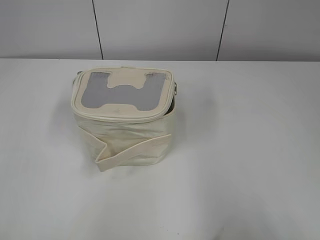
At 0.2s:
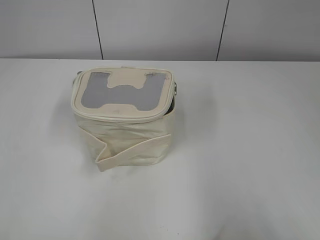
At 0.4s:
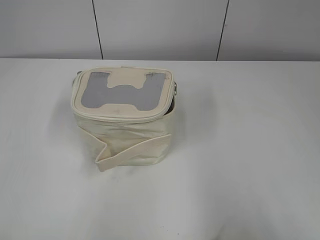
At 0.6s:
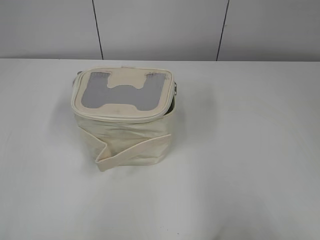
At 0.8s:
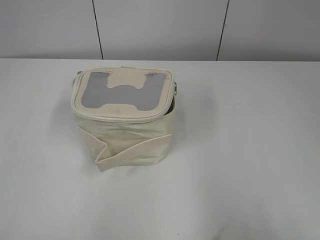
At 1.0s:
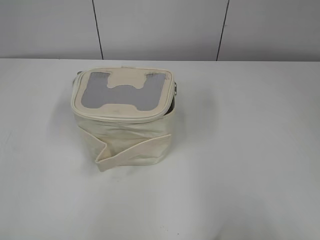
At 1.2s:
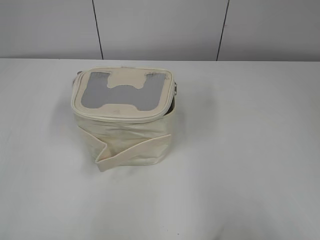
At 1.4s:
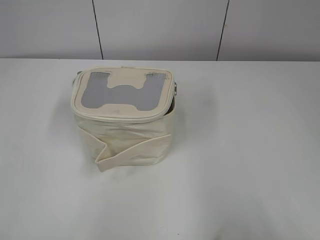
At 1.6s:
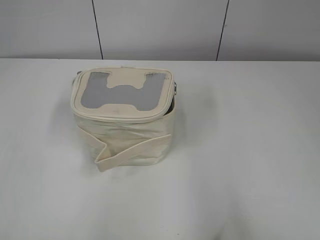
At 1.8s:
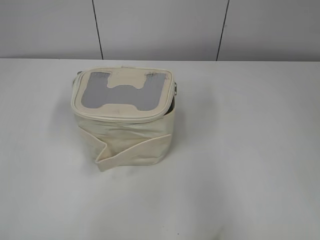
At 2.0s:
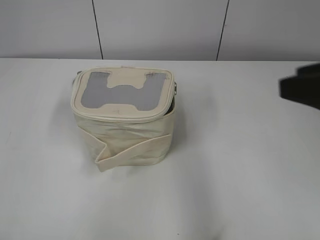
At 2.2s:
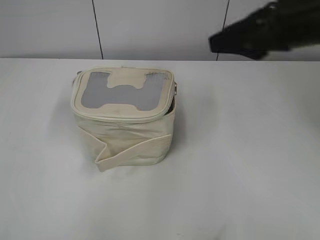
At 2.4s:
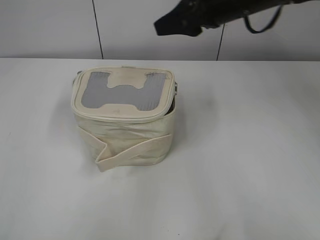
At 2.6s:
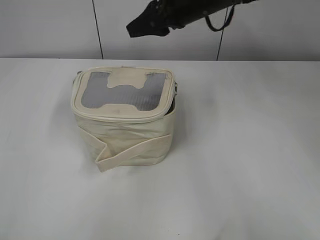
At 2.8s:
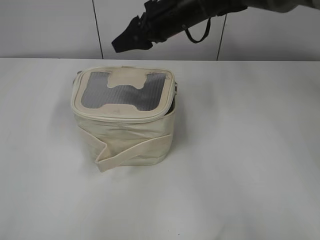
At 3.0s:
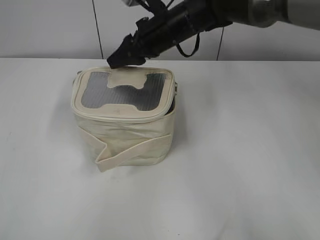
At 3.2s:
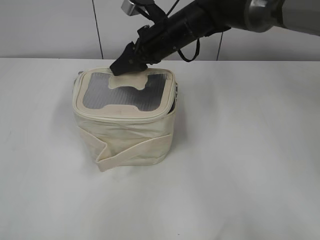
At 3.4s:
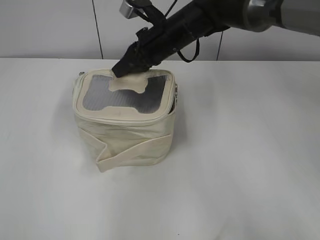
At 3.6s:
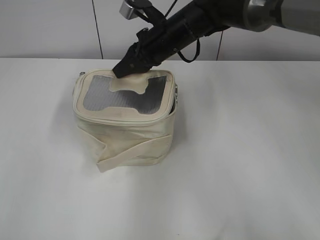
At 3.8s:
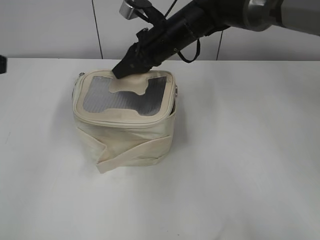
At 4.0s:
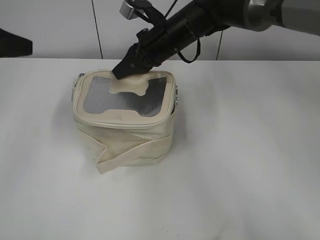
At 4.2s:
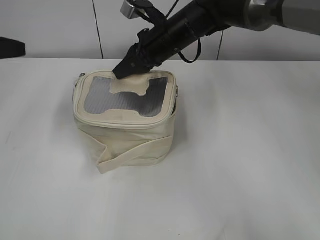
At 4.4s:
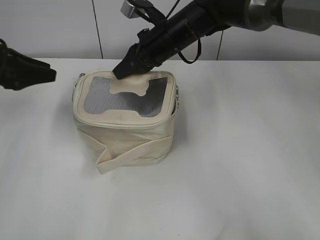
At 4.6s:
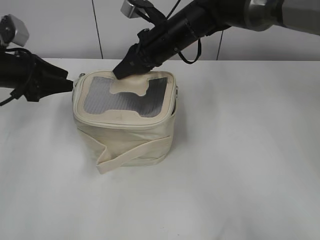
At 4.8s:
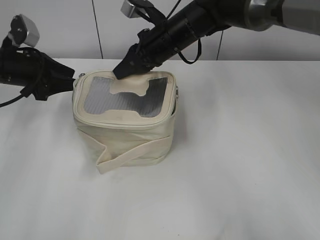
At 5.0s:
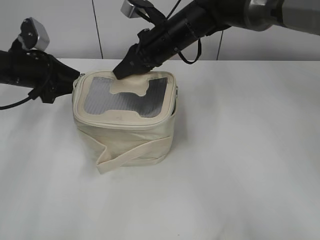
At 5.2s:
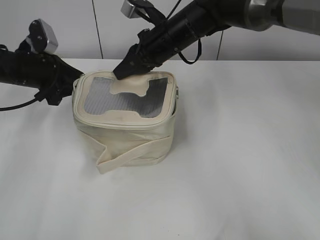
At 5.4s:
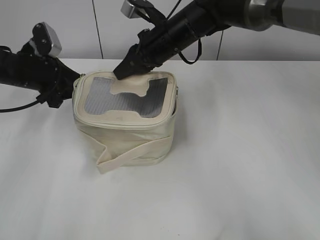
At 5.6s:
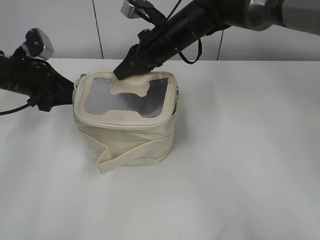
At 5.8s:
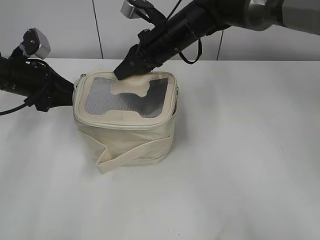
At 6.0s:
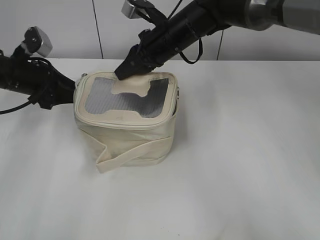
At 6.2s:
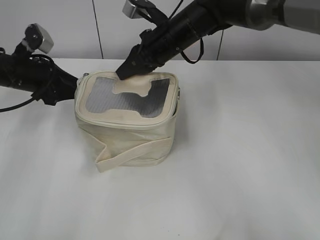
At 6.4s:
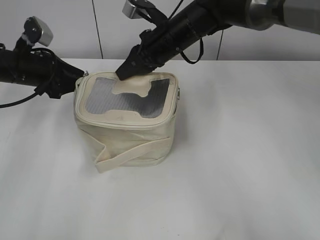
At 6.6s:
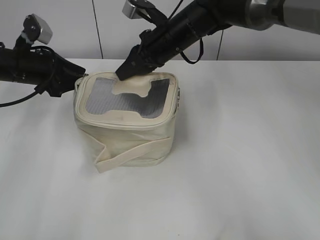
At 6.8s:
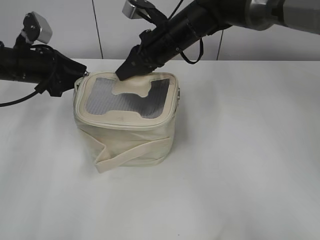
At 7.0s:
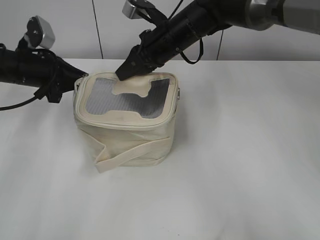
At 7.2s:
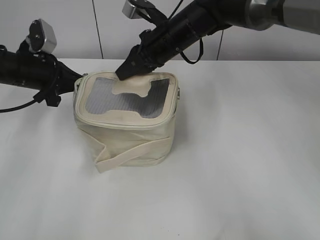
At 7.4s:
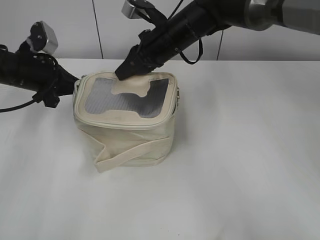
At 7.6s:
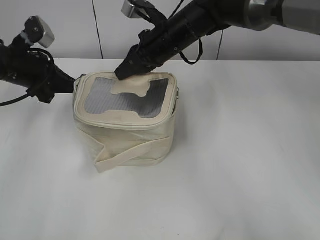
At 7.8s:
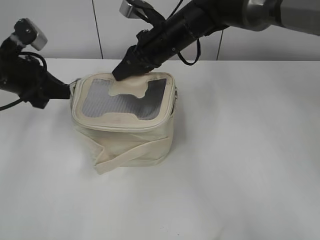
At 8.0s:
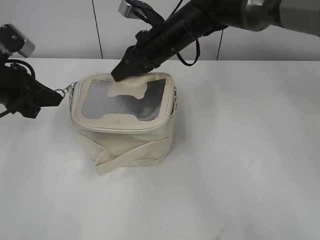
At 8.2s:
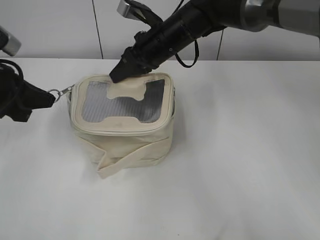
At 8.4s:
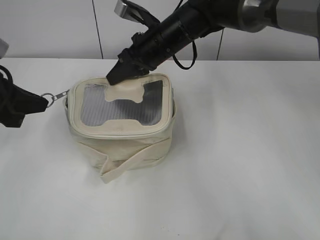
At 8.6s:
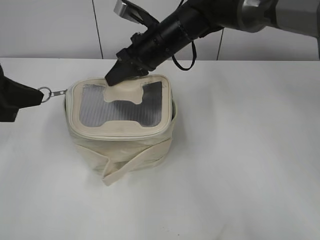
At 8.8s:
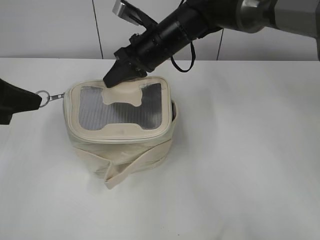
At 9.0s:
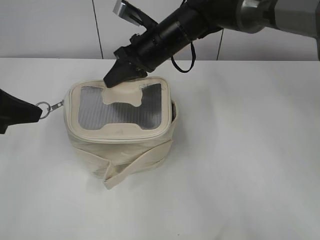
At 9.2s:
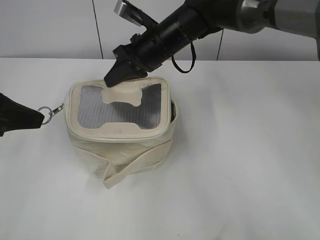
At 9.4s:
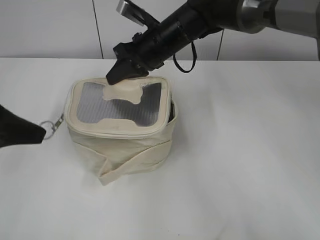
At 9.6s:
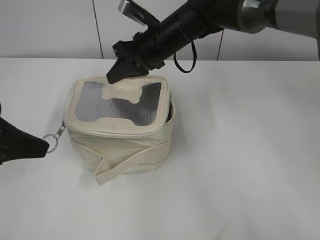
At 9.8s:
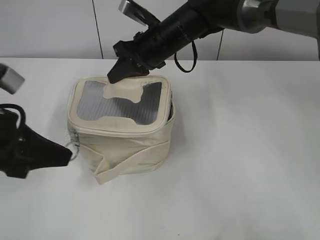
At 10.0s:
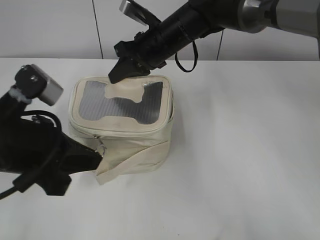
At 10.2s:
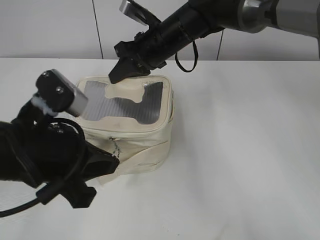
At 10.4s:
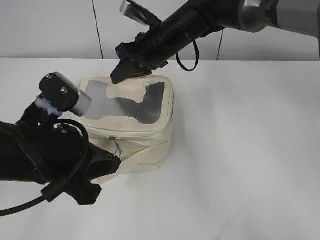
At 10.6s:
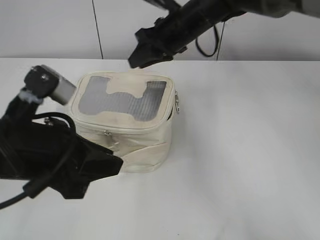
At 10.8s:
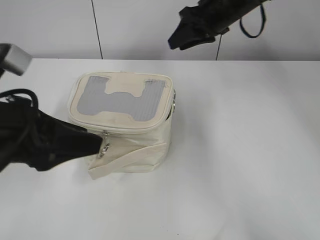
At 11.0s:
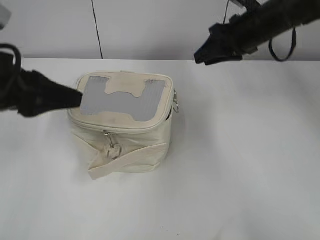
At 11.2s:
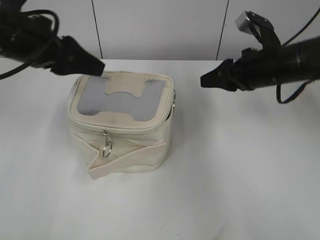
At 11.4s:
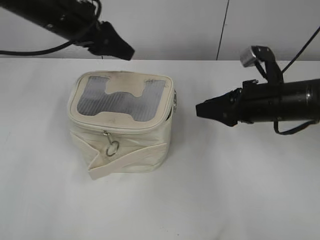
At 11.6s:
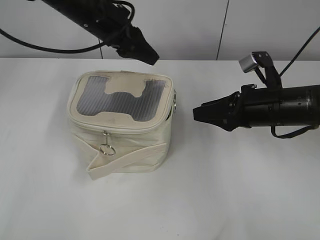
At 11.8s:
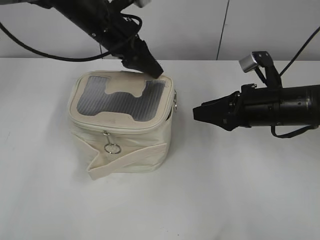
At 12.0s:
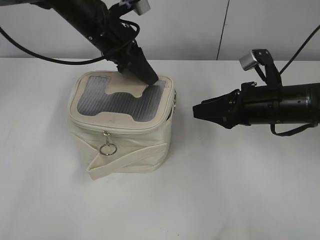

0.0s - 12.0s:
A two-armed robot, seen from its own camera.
Step, 0.0s - 10.4s: Zip up the bag with your left hand.
1.6s - 3.0s: The right gripper is displaced forward and to the left by about 50 cm.
3.0s - 4.4s: The left gripper heads forward, covering approximately 35 cm; the right gripper closes.
4.4s - 6.0s: The left gripper shifts by about 5 cm.
6.0s - 7.6s: The left gripper closes.
7.6s - 9.0s: The left gripper goes roughly 15 cm backward.
9.0s - 10.4s: The left gripper travels to the right and backward by about 15 cm.
10.4s - 12.0s: The right gripper travels to the right and backward by approximately 20 cm, and opens. Meanwhile the left gripper shifts approximately 25 cm forward, and opens up.

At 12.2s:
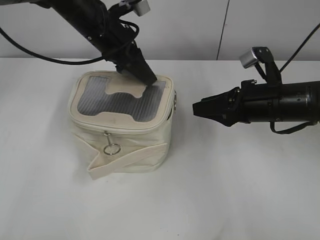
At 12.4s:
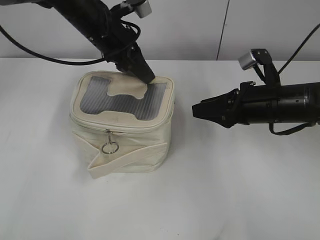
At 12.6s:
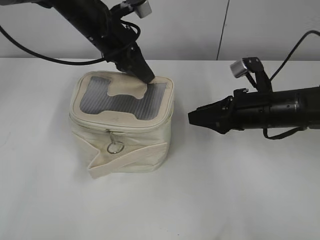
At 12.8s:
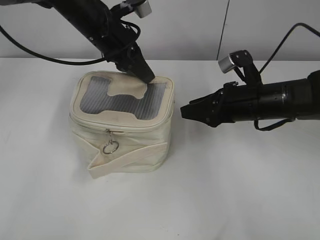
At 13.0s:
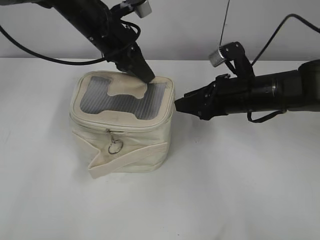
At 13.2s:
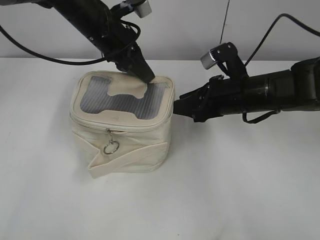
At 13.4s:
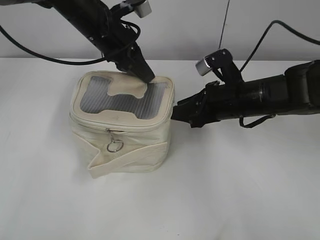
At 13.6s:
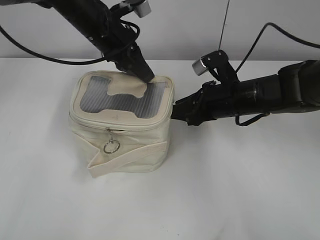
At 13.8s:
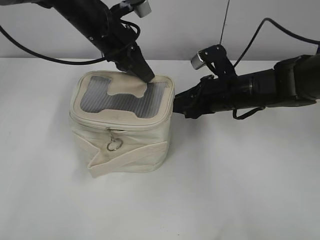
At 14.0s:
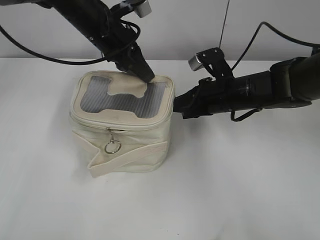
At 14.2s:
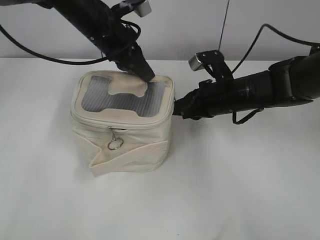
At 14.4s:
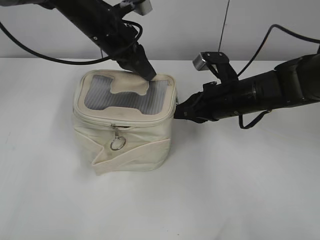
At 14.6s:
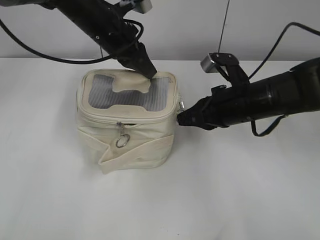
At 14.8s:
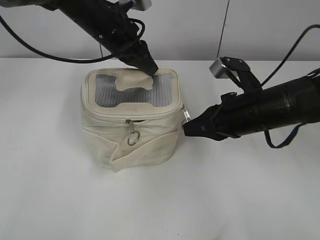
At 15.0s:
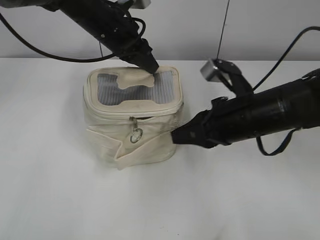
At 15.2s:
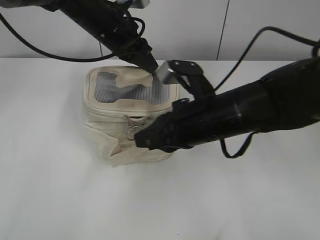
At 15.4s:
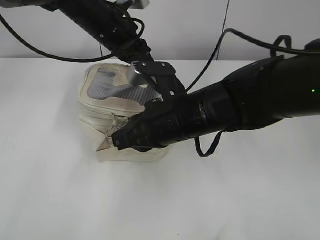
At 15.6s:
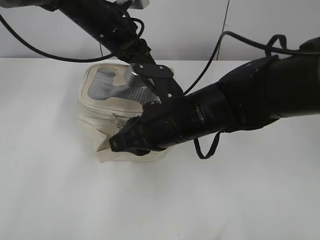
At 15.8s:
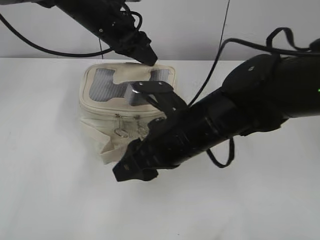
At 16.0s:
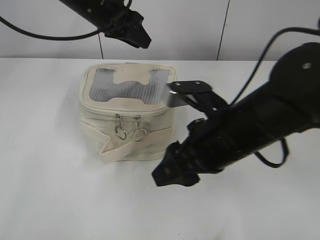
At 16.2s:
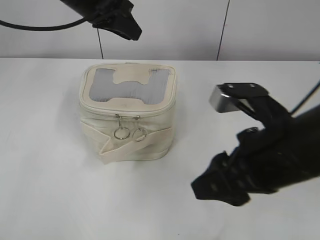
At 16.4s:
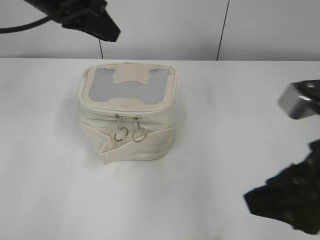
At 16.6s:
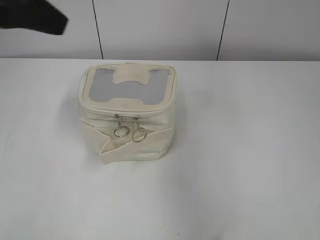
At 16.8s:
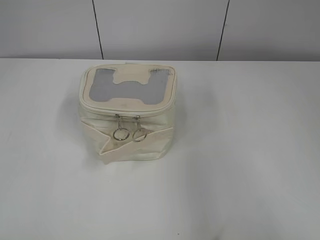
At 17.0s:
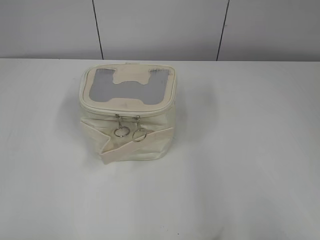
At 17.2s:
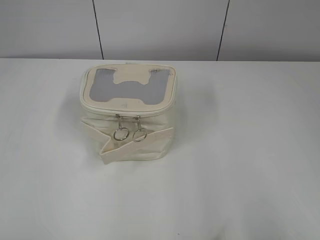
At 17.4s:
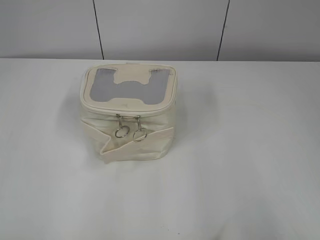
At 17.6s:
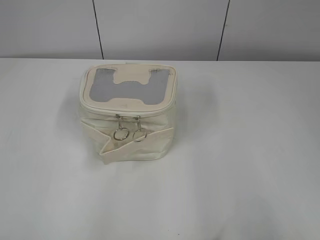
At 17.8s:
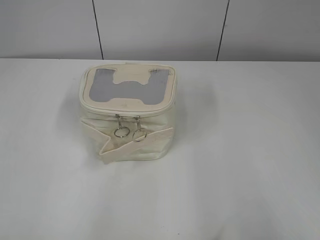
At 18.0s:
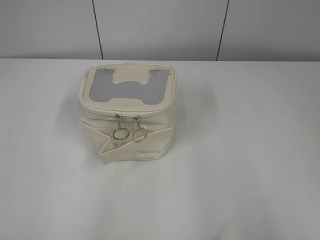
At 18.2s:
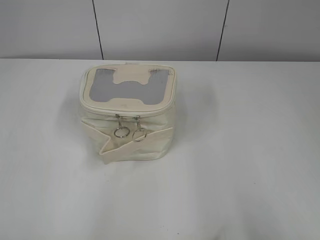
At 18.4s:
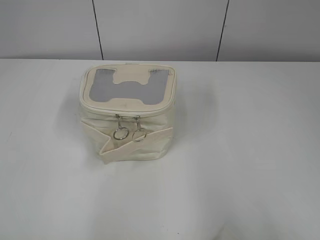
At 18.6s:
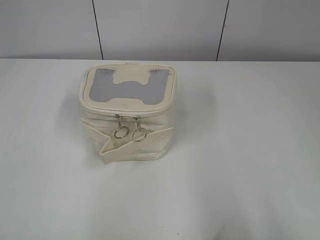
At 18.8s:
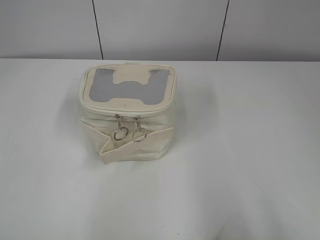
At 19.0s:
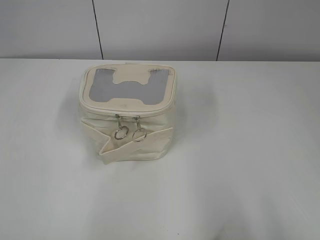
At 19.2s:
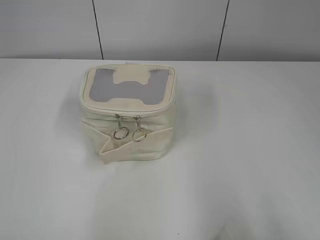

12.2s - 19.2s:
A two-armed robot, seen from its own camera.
Step, 12.2s - 15.6s: Zip up the bag with your right hand.
12.2s - 13.6s: The left gripper closes, while the right gripper ends up approximately 5 cm from where it was.
13.6s - 15.0s: The right gripper moves backward, some 5 cm, and closes its fingers.
15.0s - 16.4s: The left gripper is displaced upward, backward and to the left by some 15 cm. Meanwhile the right gripper moves backward and upward, some 15 cm, travels to the left and back again, roughly 10 cm each way, and opens up.
16.4s - 17.8s: The left gripper moves backward and to the left, about 40 cm, and opens. The right gripper heads backward and to the right, covering approximately 20 cm.

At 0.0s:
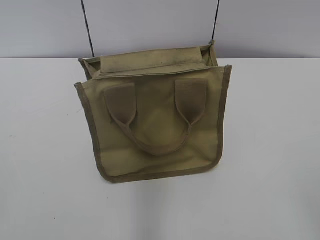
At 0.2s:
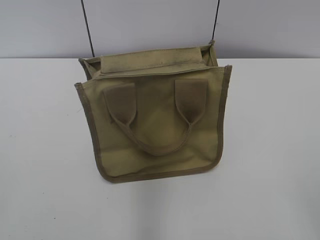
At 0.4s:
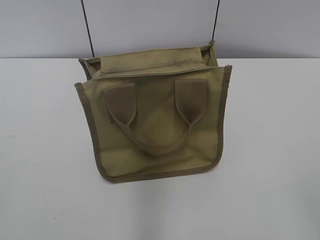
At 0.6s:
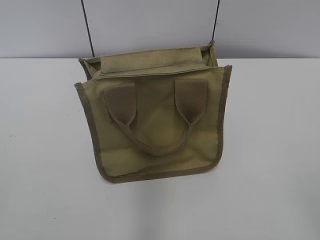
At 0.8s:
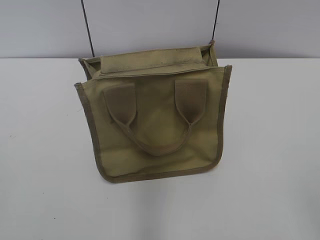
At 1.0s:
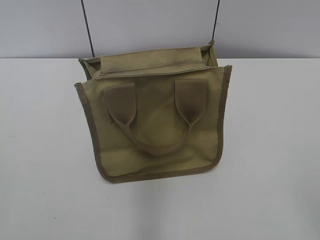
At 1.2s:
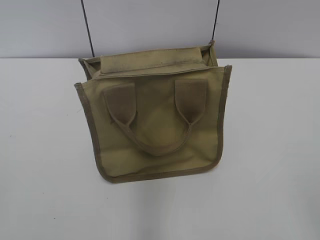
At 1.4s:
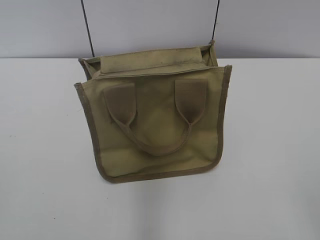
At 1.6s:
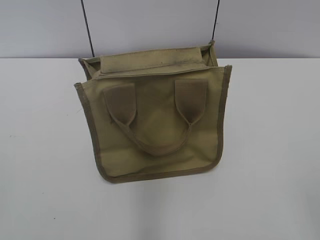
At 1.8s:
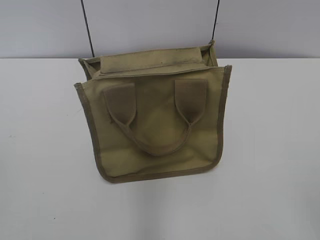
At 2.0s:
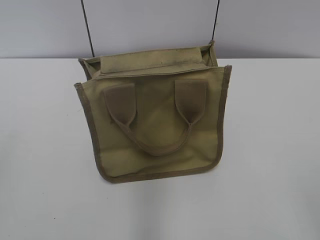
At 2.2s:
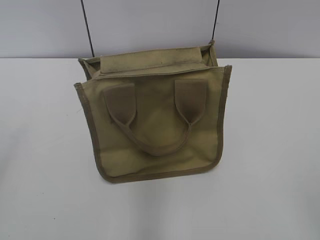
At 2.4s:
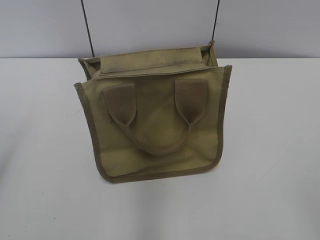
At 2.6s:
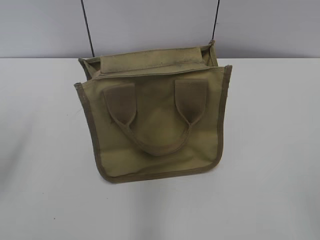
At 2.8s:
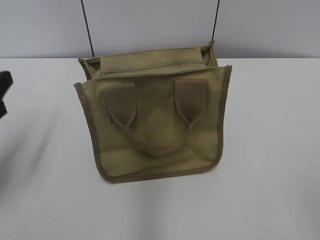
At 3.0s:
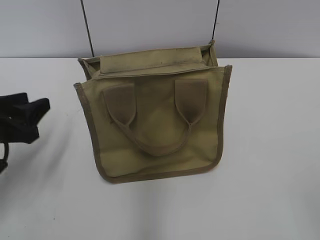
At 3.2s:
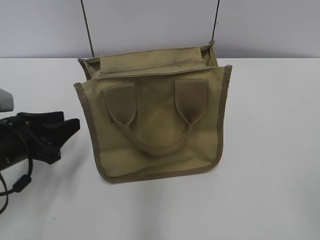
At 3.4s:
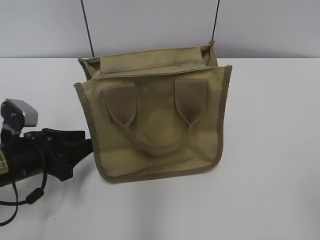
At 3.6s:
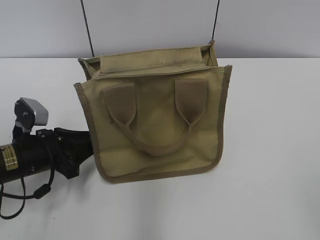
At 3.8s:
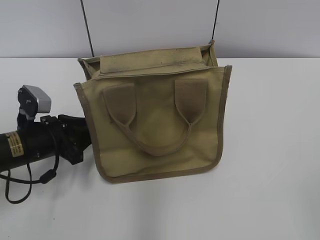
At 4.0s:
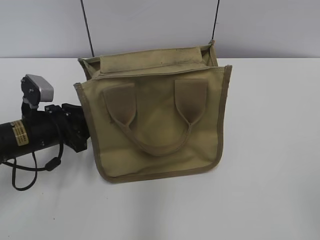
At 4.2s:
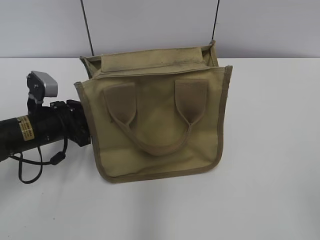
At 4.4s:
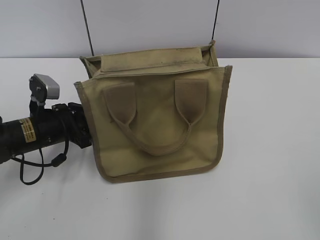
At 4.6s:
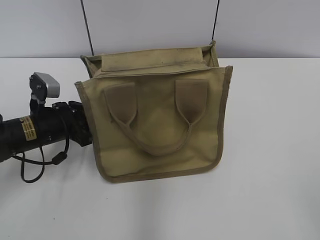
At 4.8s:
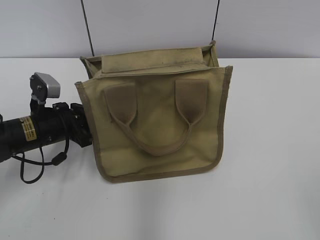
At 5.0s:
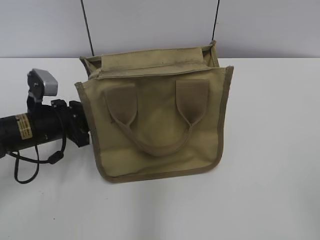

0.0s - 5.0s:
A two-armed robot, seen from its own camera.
1.6s - 3.4s: The left gripper travels forward and downward by about 30 cm.
3.4s - 5.0s: The left gripper travels forward by about 5 cm, and closes up.
